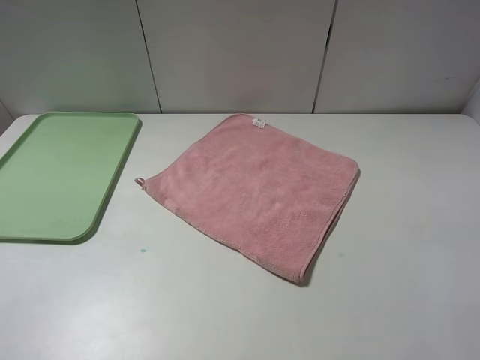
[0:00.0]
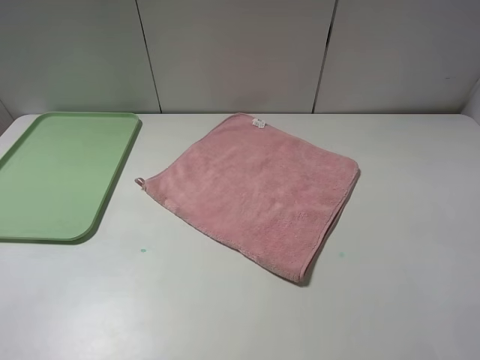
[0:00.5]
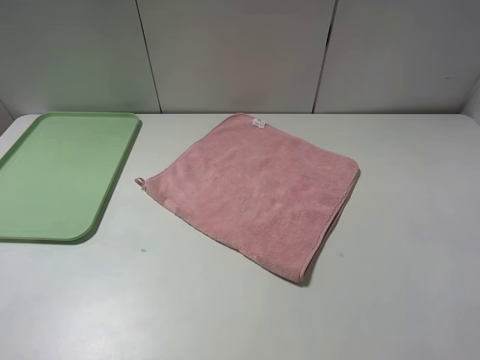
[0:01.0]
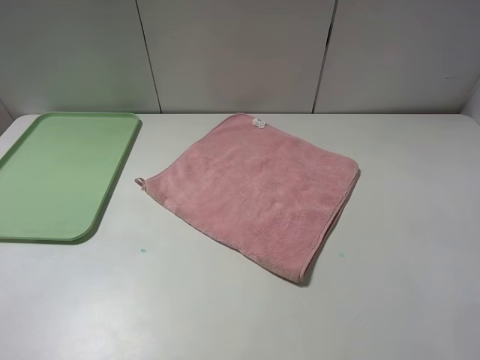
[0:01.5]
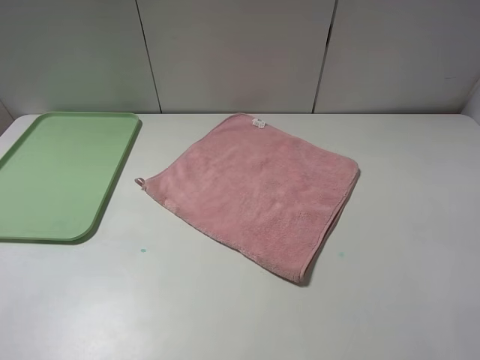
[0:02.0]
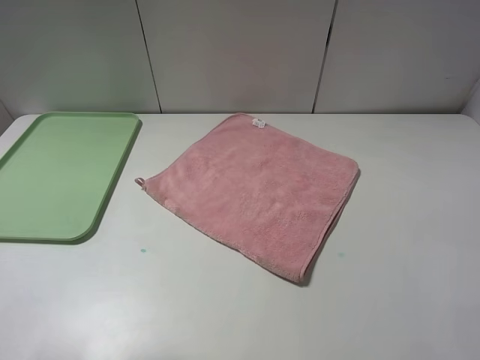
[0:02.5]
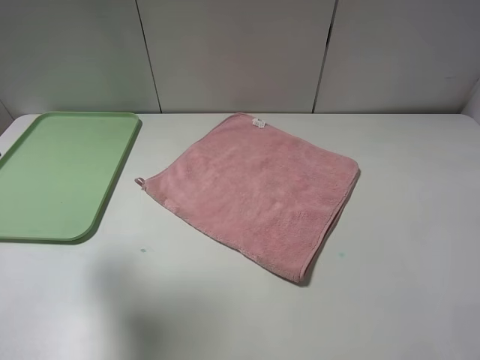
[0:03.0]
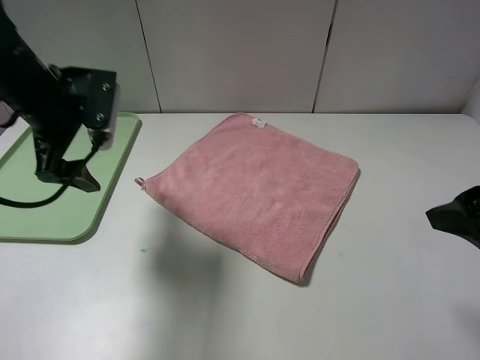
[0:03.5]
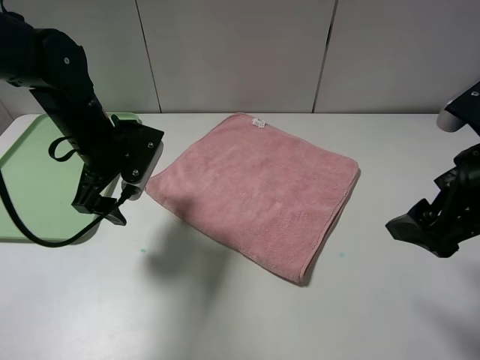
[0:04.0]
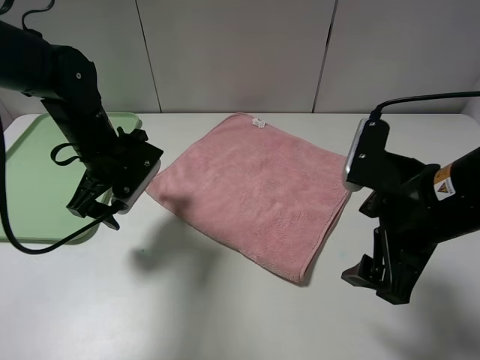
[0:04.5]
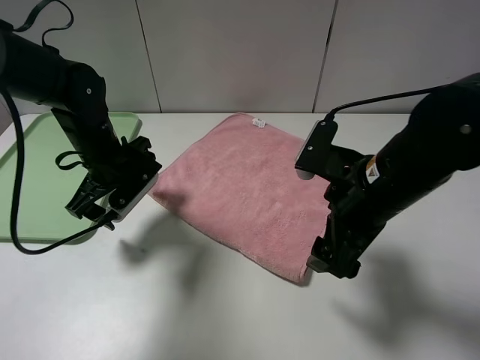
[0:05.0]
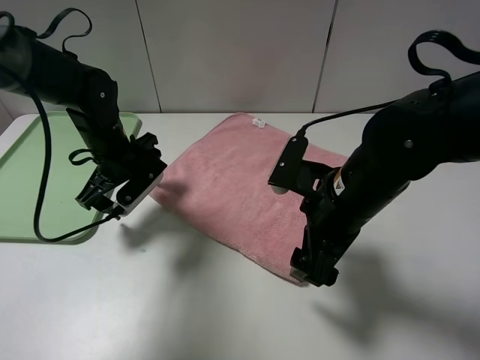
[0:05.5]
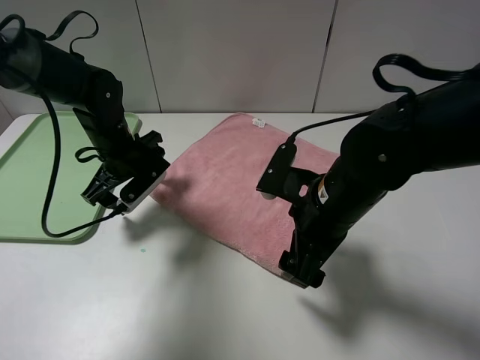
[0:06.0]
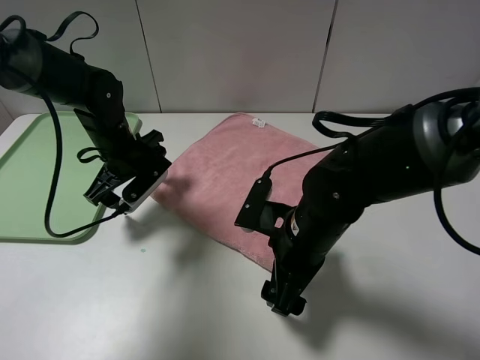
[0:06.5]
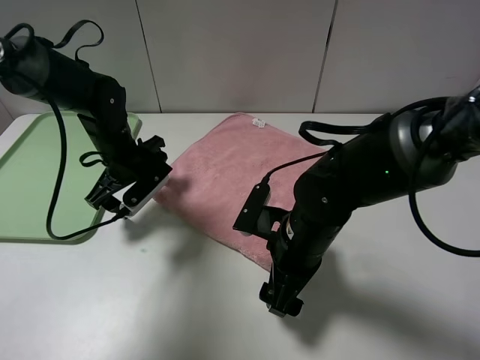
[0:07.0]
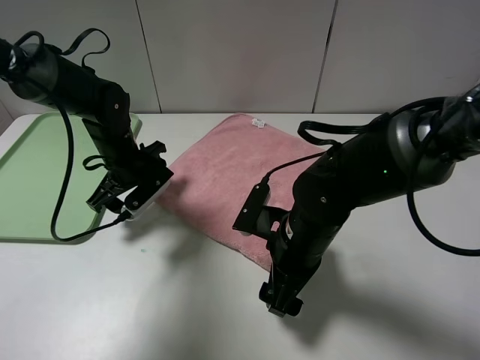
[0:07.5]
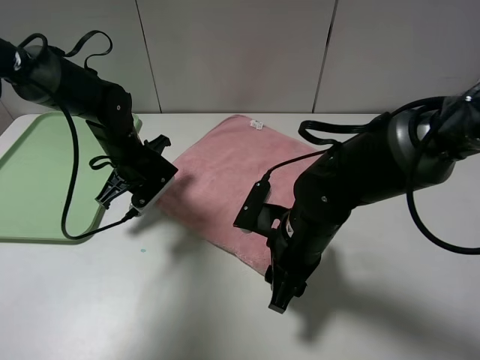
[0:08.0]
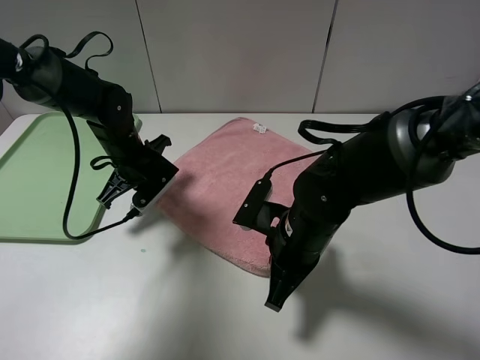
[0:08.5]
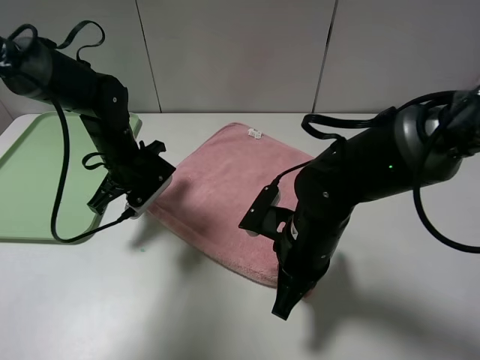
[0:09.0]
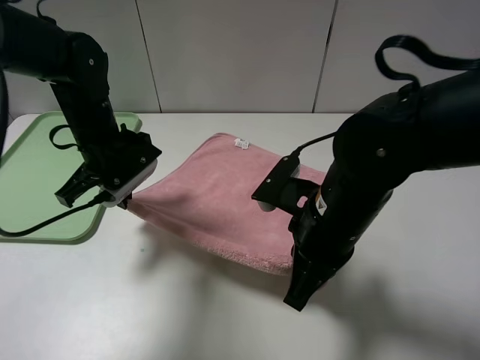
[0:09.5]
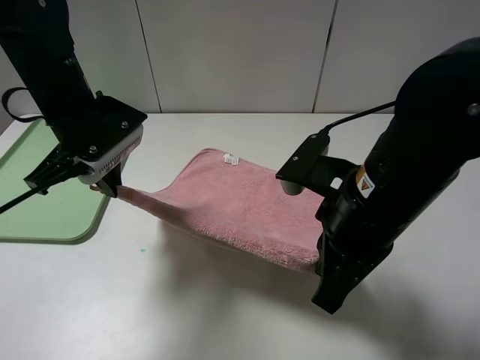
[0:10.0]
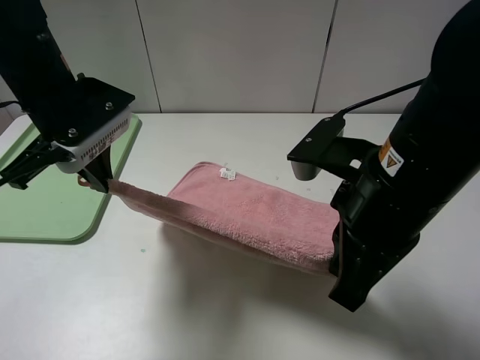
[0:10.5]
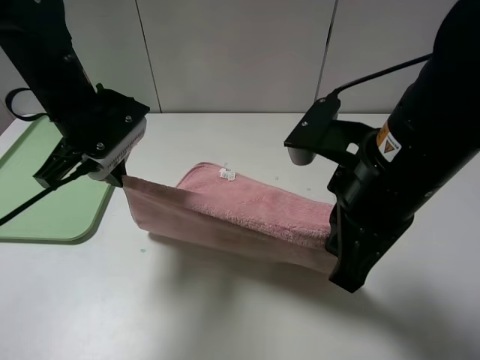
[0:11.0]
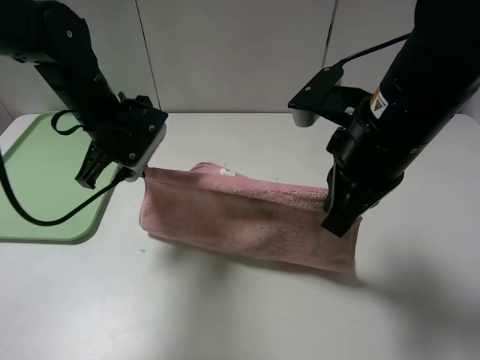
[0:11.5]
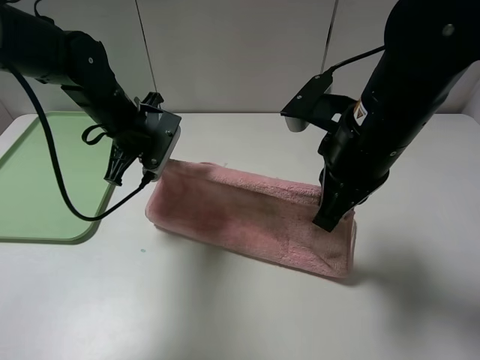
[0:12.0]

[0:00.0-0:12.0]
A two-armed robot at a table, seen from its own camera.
0:00.0 to 0:02.0: Both grippers stay about where they are.
0:02.0 to 0:04.0: The left gripper goes some 30 cm forward; the right gripper moves forward, some 15 cm.
0:04.0 to 0:06.0: The right gripper travels to the left and downward by roughly 15 cm. Meanwhile the left gripper heads downward, covering roughly 5 cm.
0:06.0 to 0:08.0: The right gripper heads downward, covering approximately 5 cm, and closes. Meanwhile the left gripper closes its fingers.
0:08.0 to 0:10.0: The left gripper moves upward and backward, approximately 15 cm, while the right gripper heads upward, covering some 10 cm, and closes.
0:10.0 to 0:12.0: The right gripper shifts roughly 5 cm forward; the left gripper goes approximately 10 cm forward and downward.

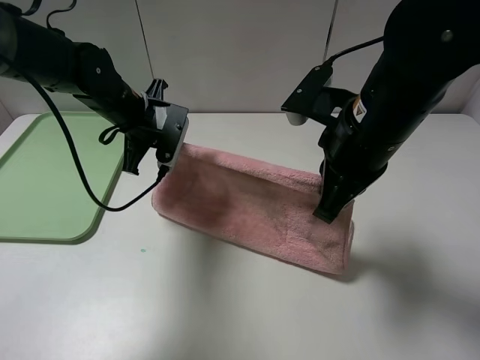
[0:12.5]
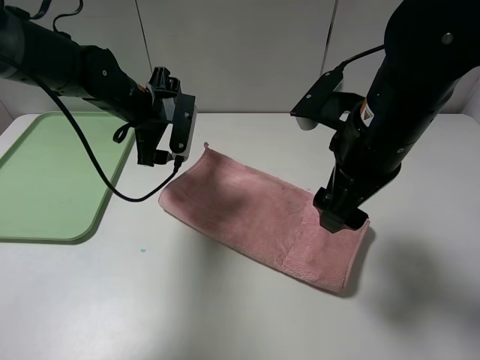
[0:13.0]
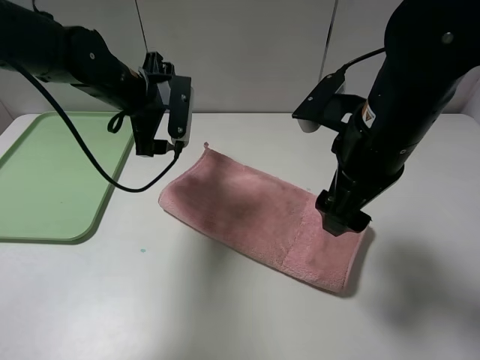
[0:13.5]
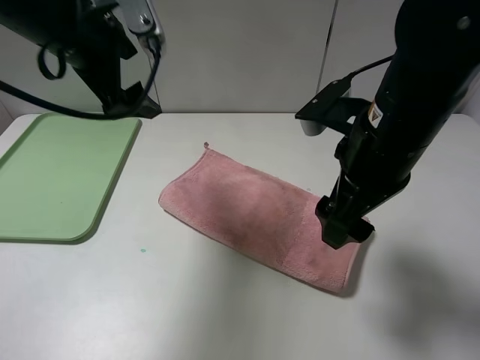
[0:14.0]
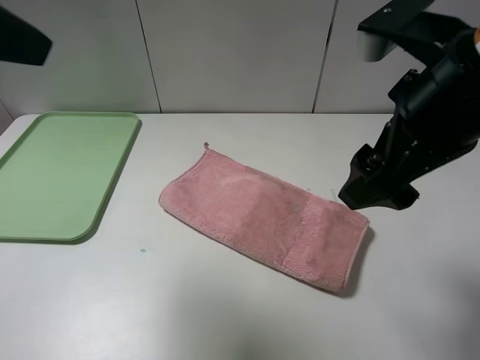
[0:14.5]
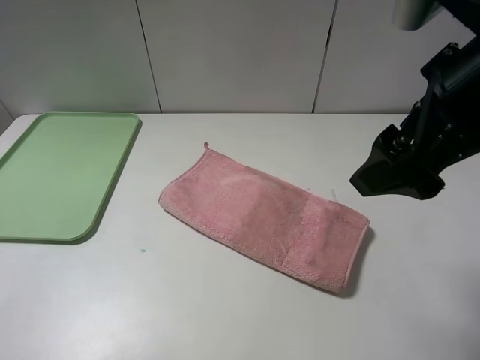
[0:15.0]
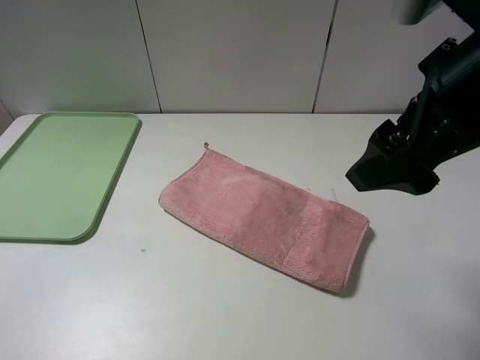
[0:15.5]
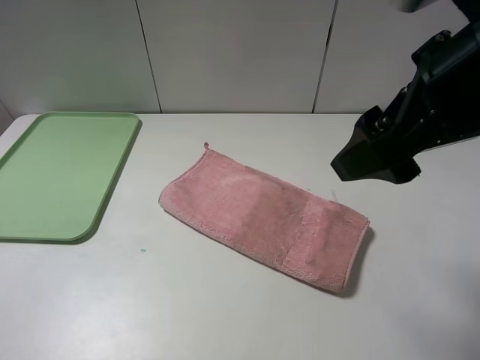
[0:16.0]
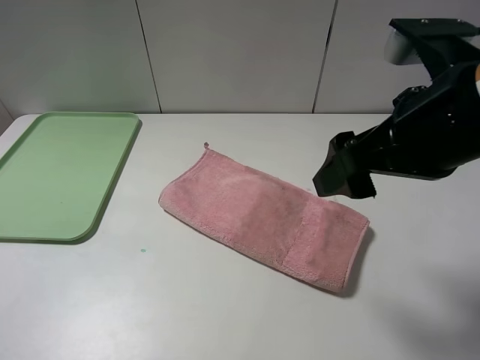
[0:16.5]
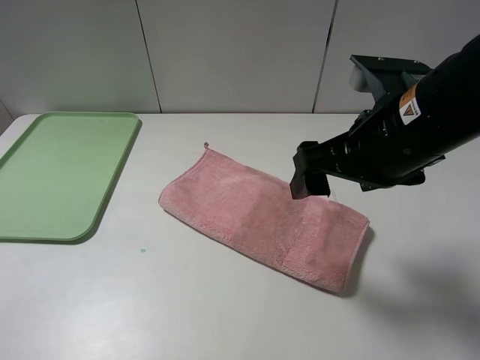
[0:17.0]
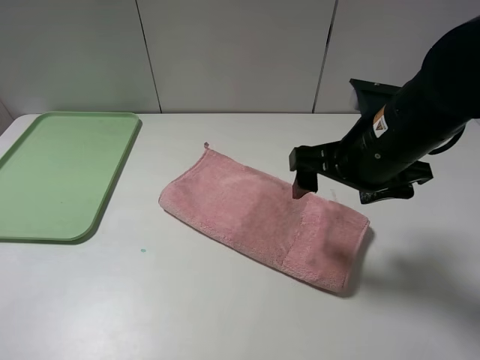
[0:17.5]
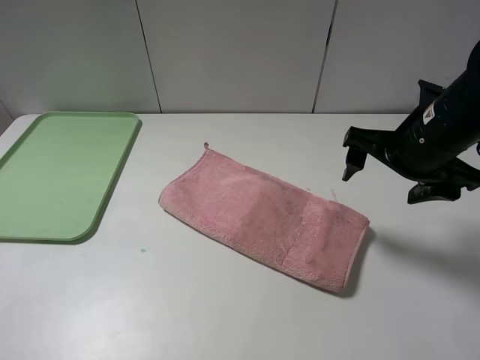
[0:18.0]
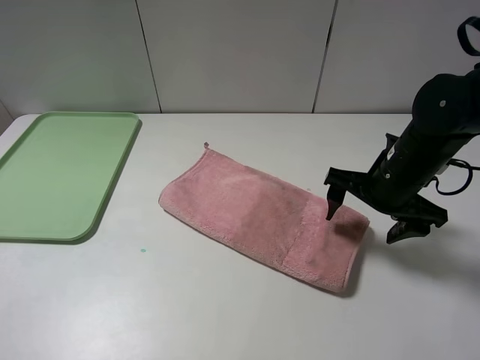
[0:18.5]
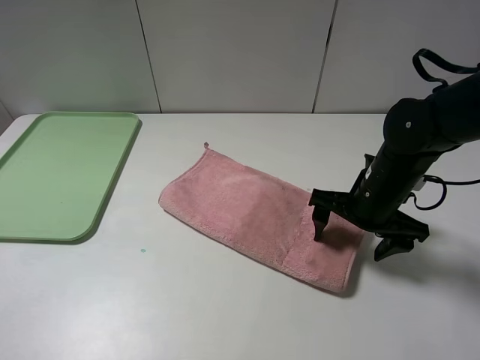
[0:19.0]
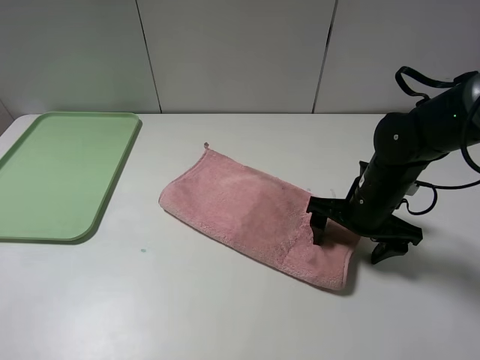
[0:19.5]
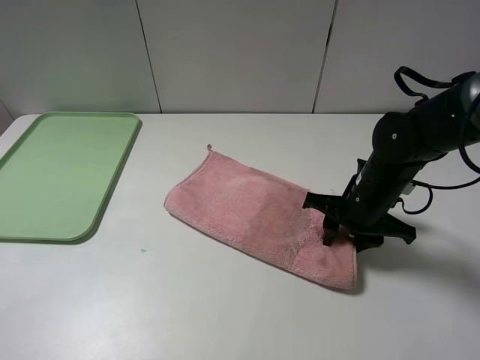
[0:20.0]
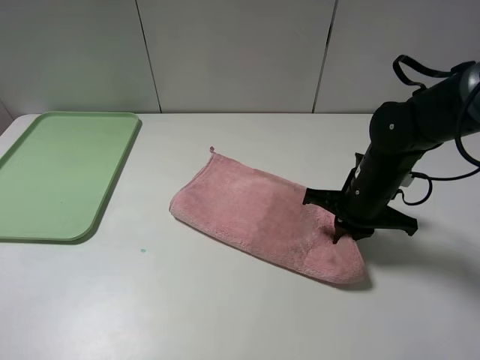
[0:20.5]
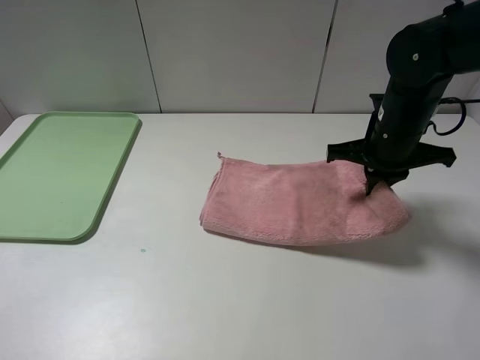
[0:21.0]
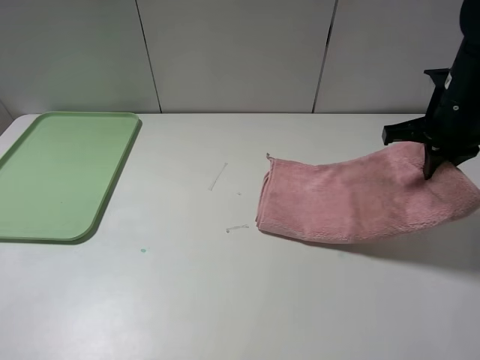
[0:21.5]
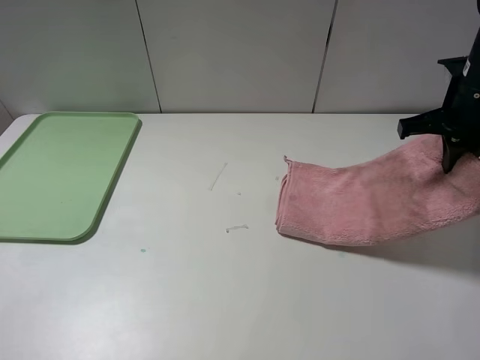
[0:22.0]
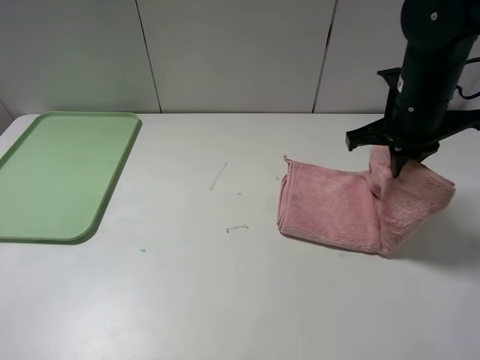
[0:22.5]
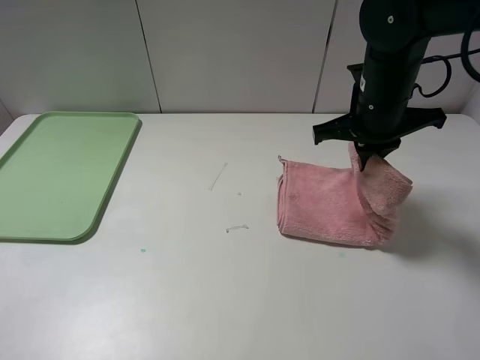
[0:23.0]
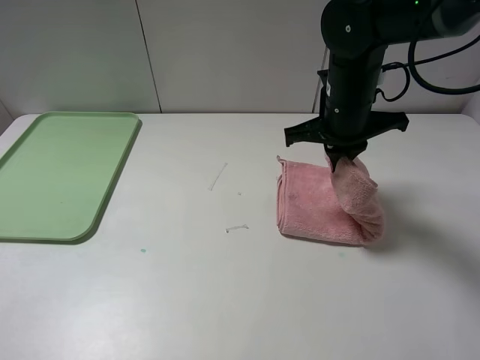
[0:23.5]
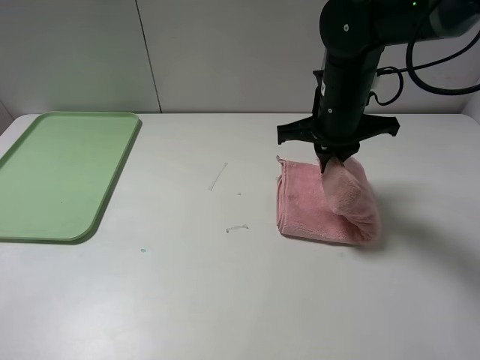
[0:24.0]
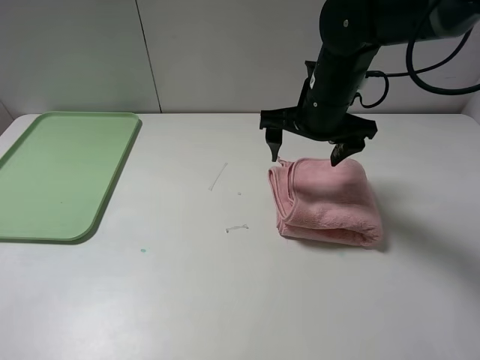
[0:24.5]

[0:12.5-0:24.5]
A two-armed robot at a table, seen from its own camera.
Step, 0:13.0 to 0:24.0: Fold the pink towel from right to left with right gripper.
0:12.5 to 0:14.5: The right gripper shifts roughly 10 cm upward and backward, and opens its fingers; the left gripper shifts roughly 35 cm upward and backward, and opens up.
0:14.5 to 0:16.5: The left gripper travels backward, downward and to the left by some 20 cm.
0:16.5 to 0:18.5: The right gripper is displaced downward and forward by some 15 cm.
0:18.5 to 0:20.5: The right gripper closes.
0:20.5 to 0:22.5: The right gripper moves upward, approximately 10 cm.
0:22.5 to 0:24.5: The right gripper heads to the left, covering roughly 10 cm, and opens its fingers.

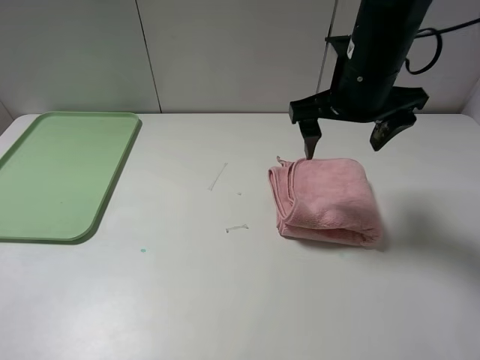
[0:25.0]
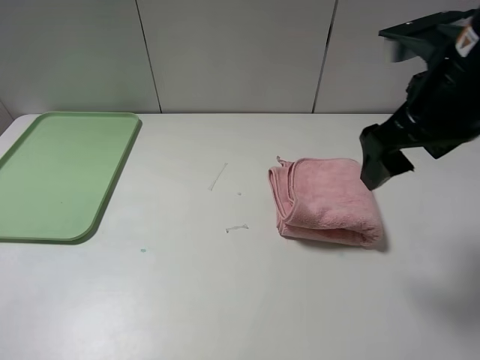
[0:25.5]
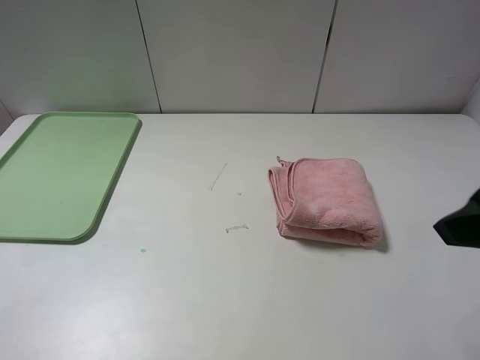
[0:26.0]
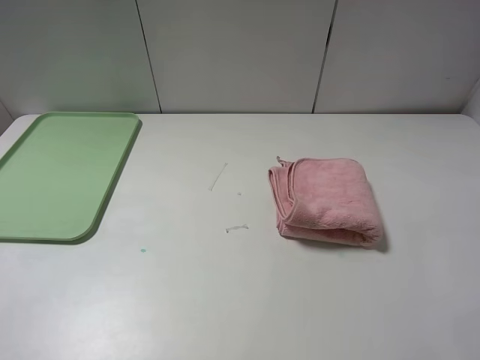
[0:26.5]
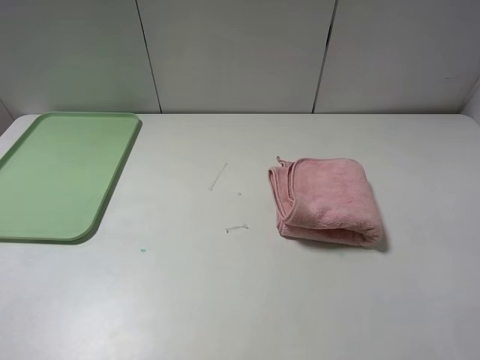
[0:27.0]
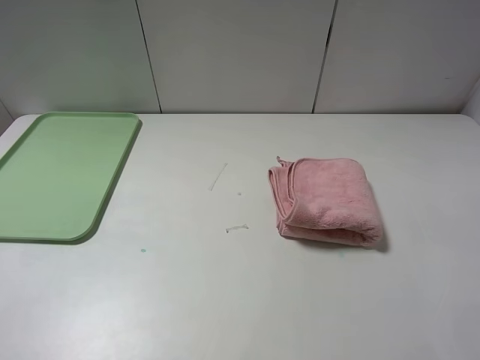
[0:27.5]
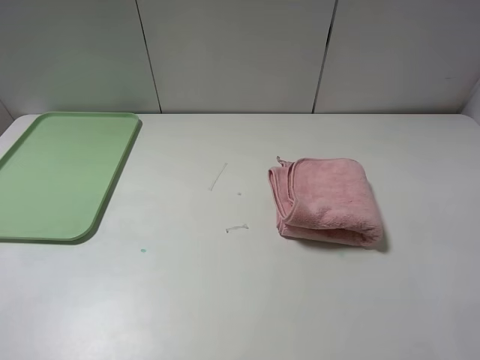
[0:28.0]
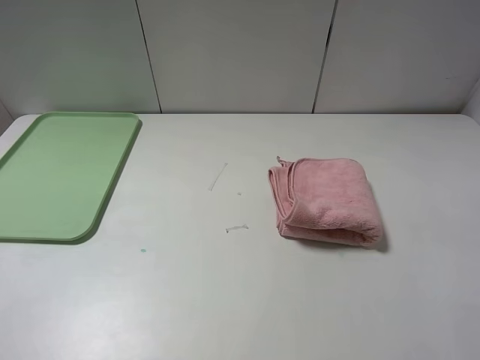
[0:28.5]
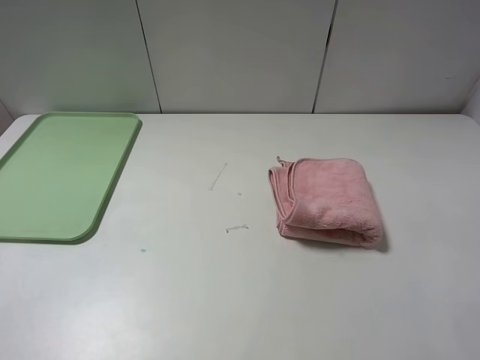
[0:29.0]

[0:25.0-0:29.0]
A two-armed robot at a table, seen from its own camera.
0:25.0 to 0:27.0: The right gripper moves backward and to the right, some 35 cm.
0:27.0 to 0:29.0: Both grippers stay put.
